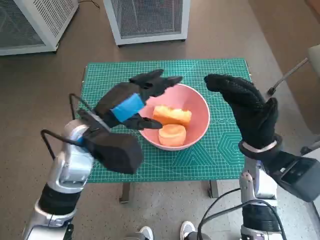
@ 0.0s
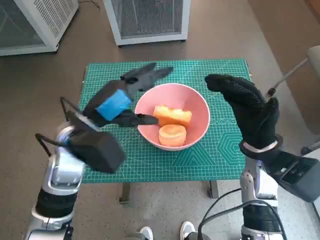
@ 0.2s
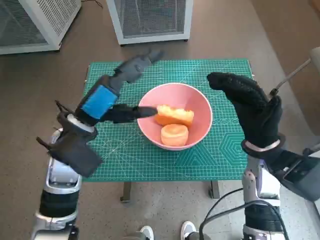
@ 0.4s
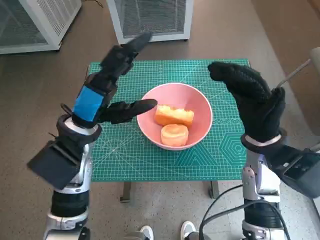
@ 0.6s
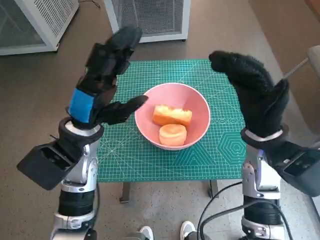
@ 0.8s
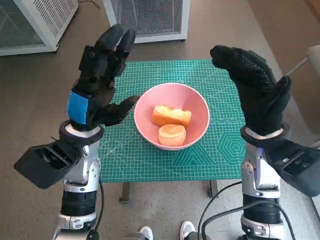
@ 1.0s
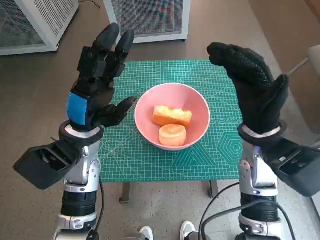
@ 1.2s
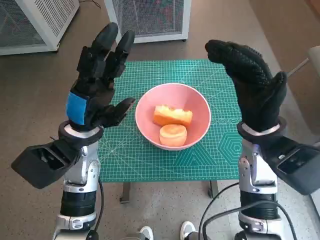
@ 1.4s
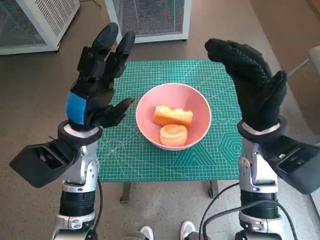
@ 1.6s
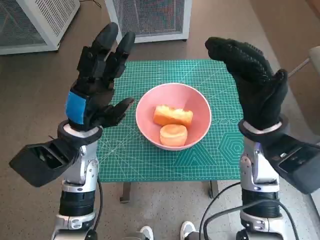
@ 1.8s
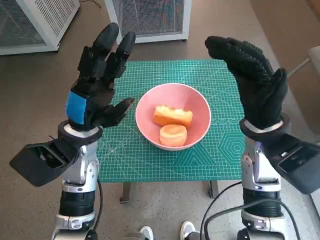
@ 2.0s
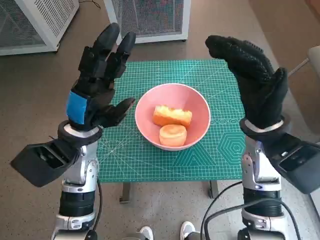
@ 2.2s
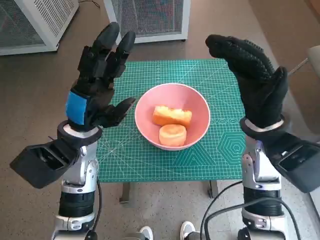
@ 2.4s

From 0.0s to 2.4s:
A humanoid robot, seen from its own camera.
Task of the whole recording: Push the bowl into the center of the table and put the bread into the bowl.
From 1.2s to 2.4s: Both hands stay about where they are.

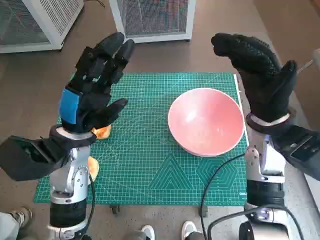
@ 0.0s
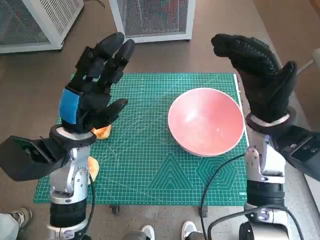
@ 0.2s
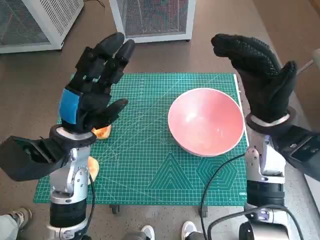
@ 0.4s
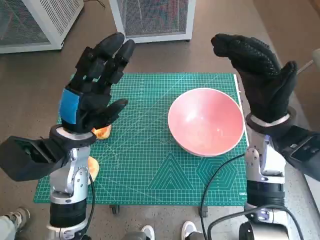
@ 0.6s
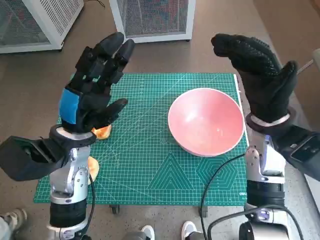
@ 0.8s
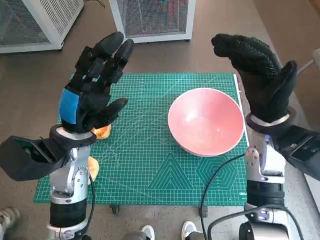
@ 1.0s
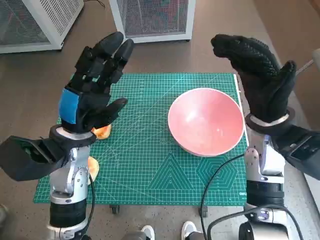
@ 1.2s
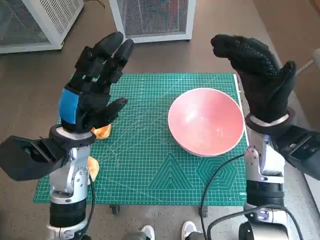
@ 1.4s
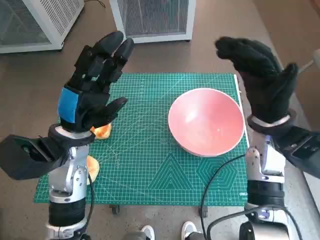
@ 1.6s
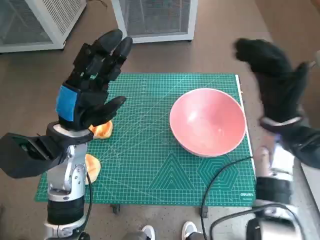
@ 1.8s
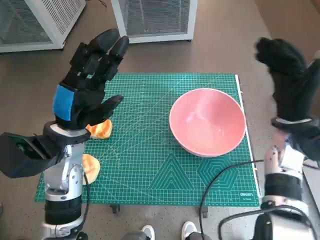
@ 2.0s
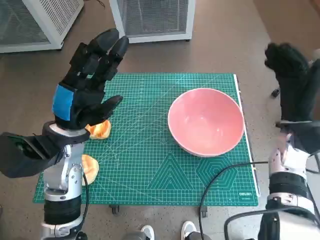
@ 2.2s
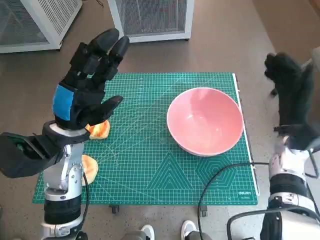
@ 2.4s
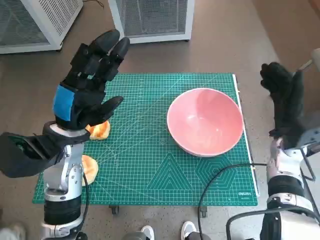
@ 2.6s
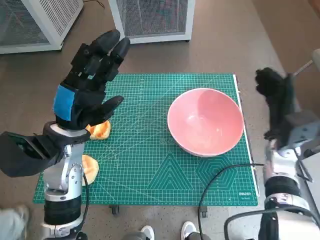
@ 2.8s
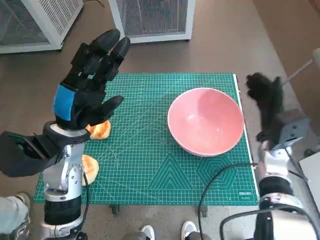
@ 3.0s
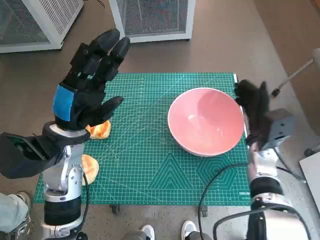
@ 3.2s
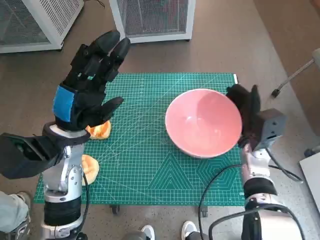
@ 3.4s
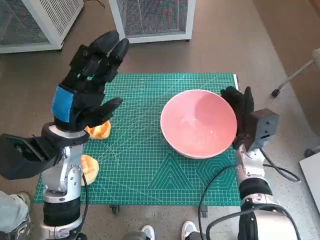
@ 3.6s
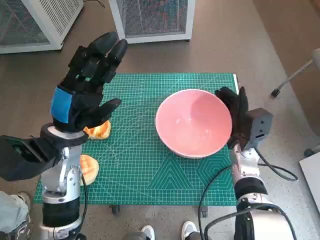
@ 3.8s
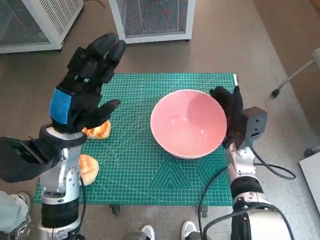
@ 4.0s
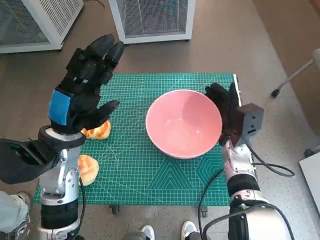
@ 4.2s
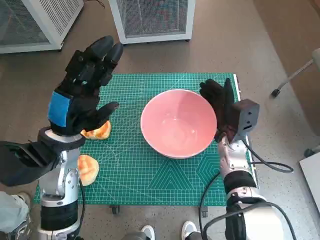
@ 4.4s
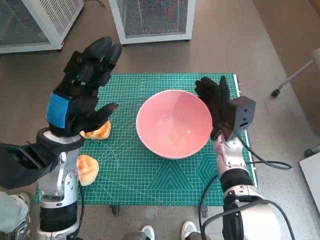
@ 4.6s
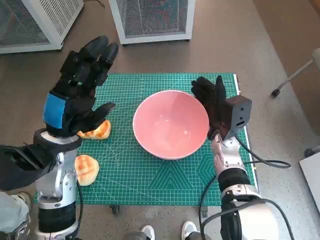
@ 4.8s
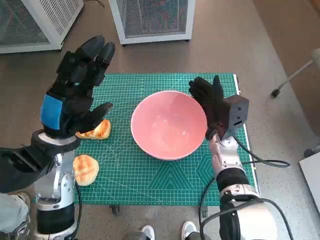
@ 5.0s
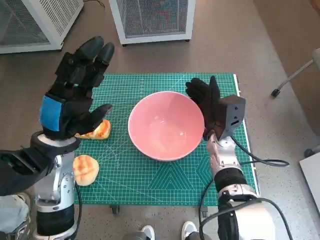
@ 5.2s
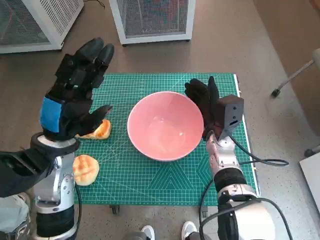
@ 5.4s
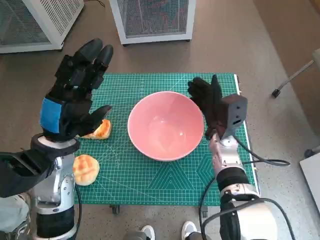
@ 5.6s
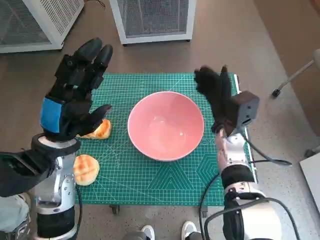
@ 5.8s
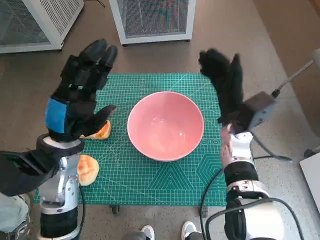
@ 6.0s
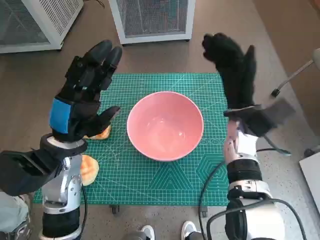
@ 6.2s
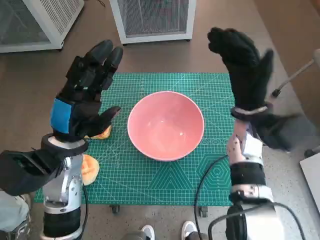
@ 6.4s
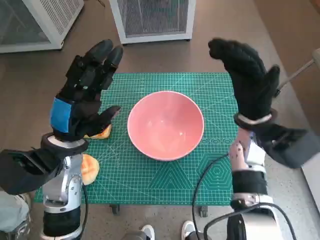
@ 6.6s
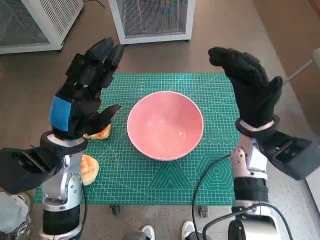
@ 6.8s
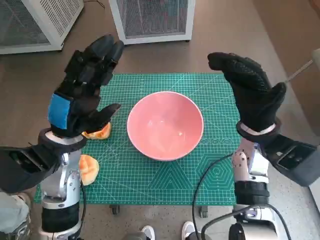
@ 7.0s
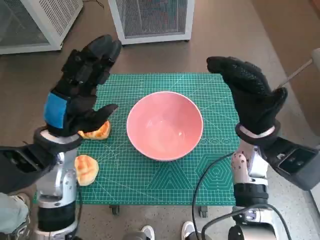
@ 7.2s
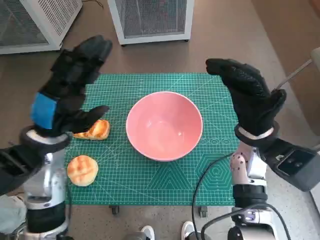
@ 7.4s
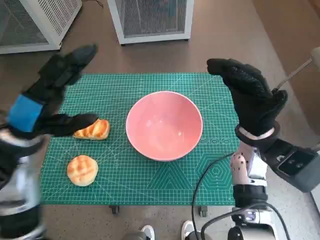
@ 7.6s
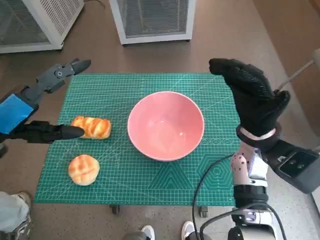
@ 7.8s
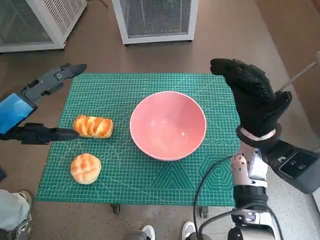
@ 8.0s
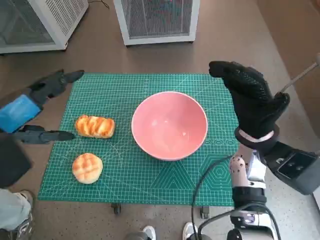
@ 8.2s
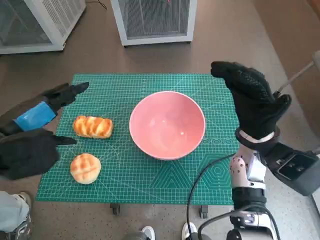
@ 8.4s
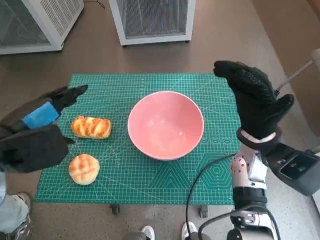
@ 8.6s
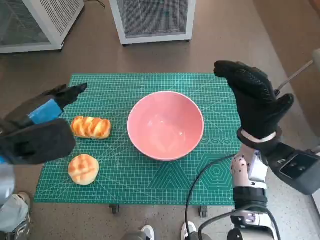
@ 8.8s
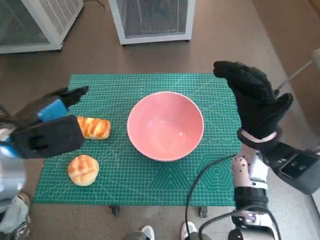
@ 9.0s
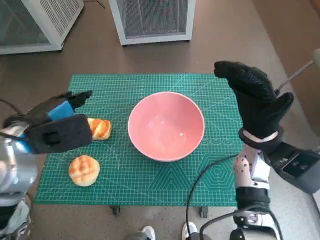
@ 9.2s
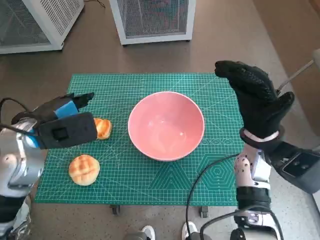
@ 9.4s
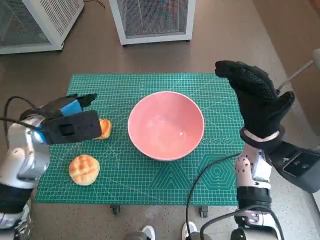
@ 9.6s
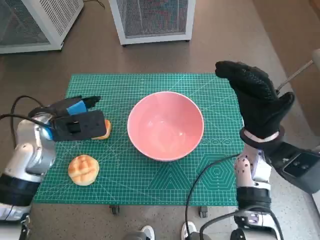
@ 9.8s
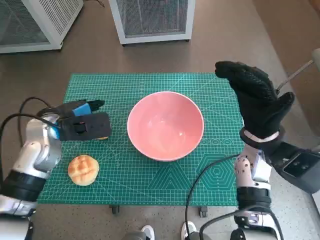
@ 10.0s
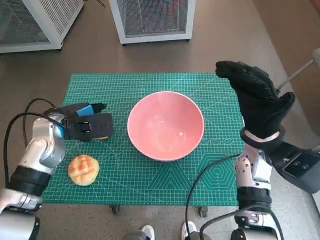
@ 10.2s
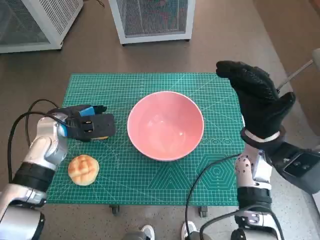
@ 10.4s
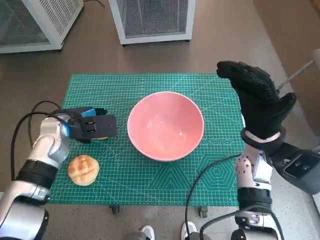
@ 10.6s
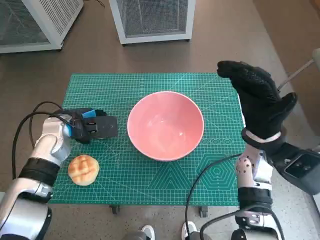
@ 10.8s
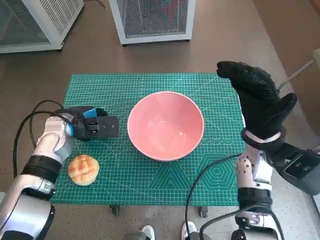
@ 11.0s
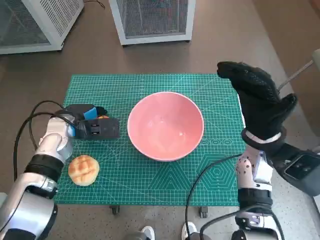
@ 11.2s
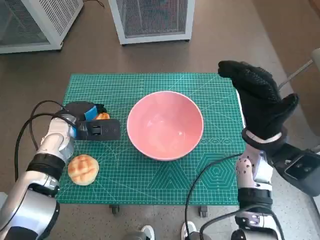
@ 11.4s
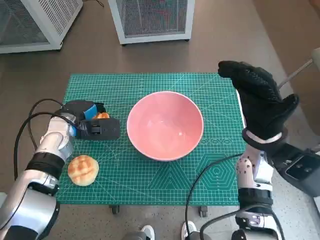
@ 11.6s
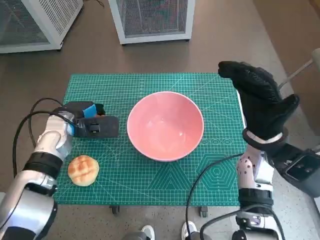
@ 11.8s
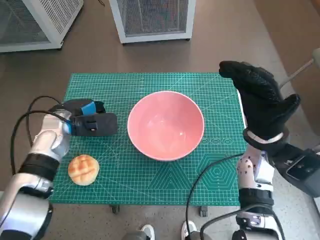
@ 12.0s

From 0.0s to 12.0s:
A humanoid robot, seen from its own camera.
Task of the whole recording: Push the bowl into the center of the table and put the bread into the bowl.
Step, from 0.0s to 5.6s: Move the pink bowl to the center of table with right hand.
Step, from 5.8s to 11.0s: Grasp the long bread with left hand.
From 1.6s to 3.0s: The right hand is displaced downward by about 10 cm.
From 3.0s to 4.4s: The right hand heads to the left, covering some 10 cm.
From 6.0s to 7.6s: The right hand ends up some 5 cm from where it was. The left hand changes place by approximately 5 cm.
From 9.0s to 10.4s: The left hand travels downward and forward by some 10 cm.
From 10.4s to 12.0s: The hands make only small movements.

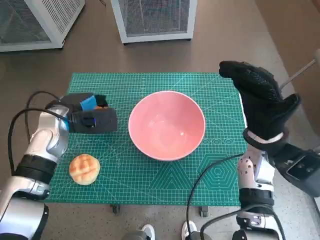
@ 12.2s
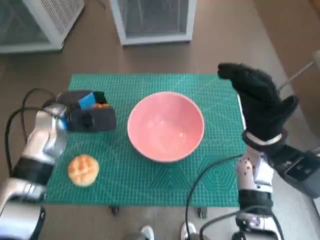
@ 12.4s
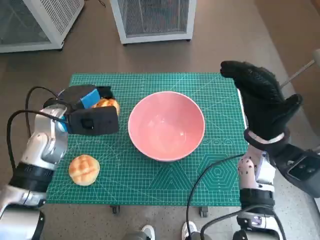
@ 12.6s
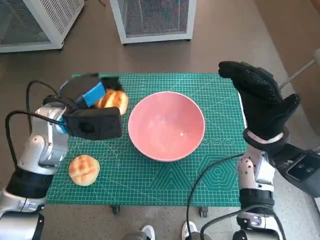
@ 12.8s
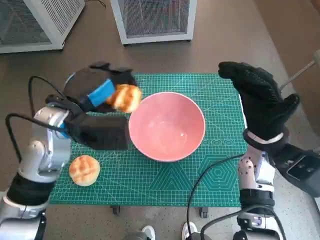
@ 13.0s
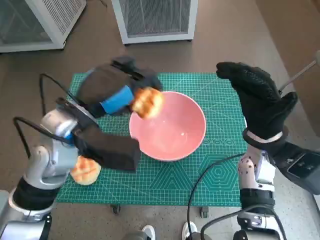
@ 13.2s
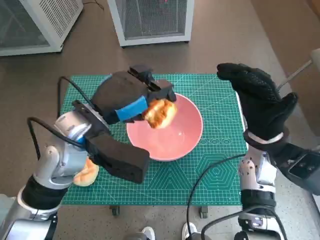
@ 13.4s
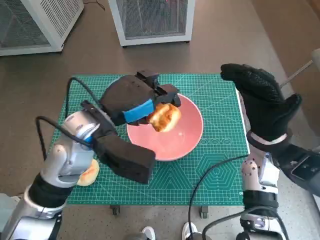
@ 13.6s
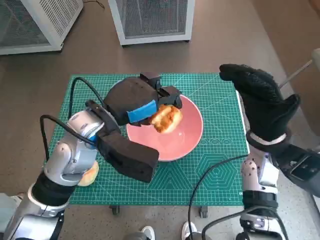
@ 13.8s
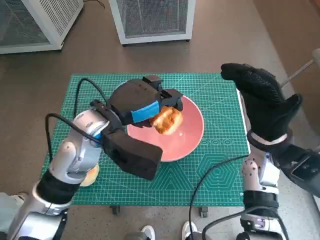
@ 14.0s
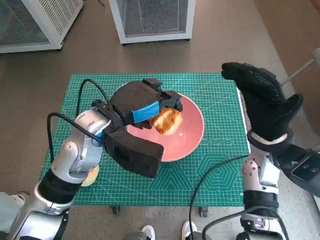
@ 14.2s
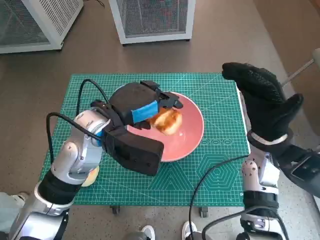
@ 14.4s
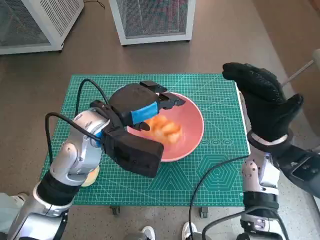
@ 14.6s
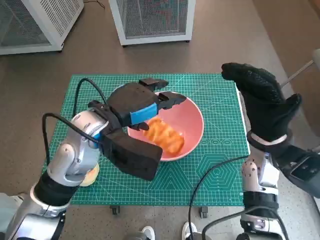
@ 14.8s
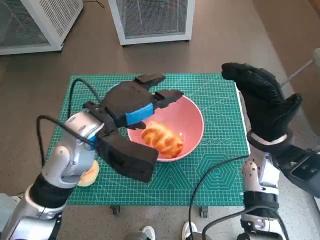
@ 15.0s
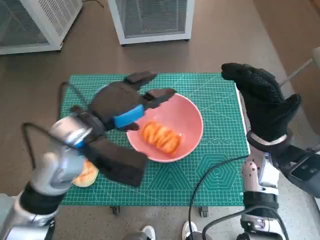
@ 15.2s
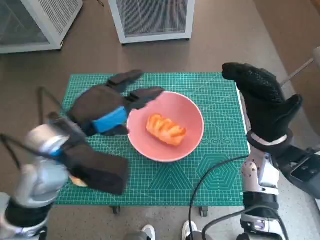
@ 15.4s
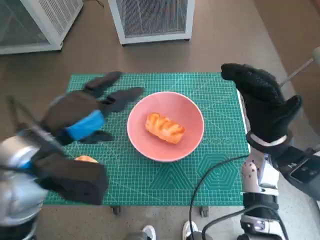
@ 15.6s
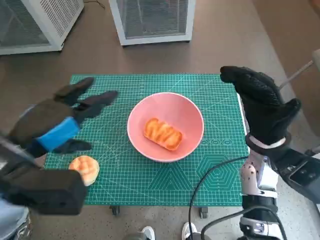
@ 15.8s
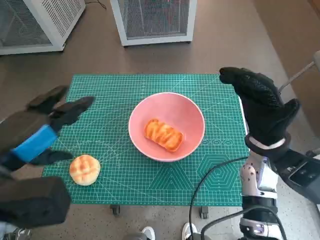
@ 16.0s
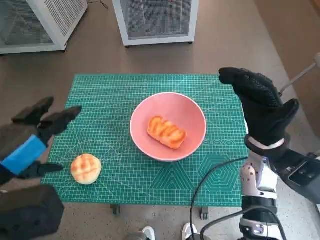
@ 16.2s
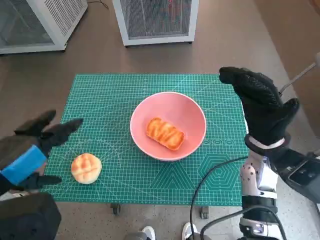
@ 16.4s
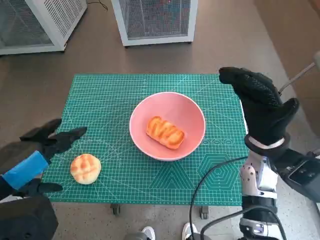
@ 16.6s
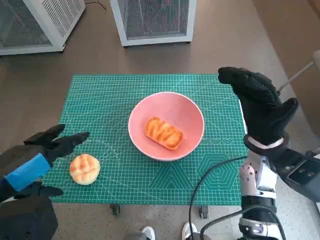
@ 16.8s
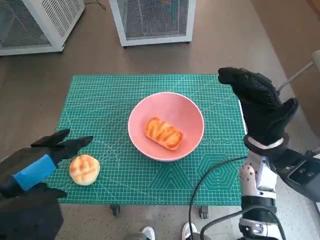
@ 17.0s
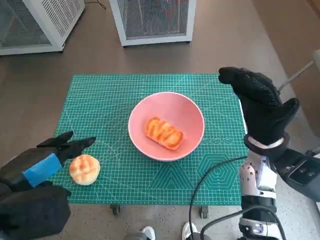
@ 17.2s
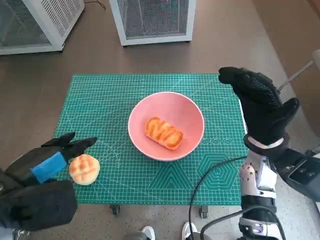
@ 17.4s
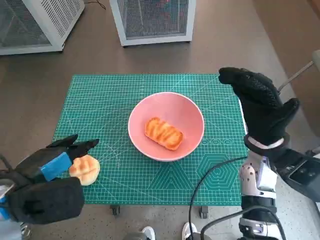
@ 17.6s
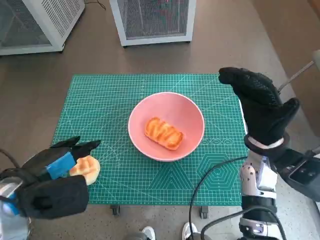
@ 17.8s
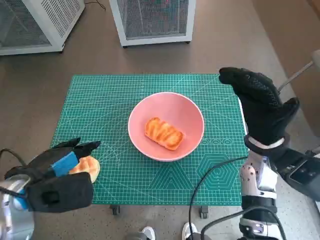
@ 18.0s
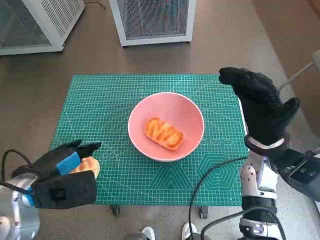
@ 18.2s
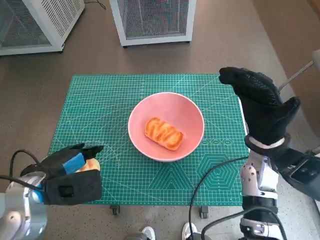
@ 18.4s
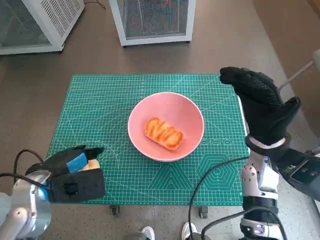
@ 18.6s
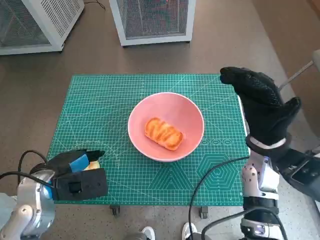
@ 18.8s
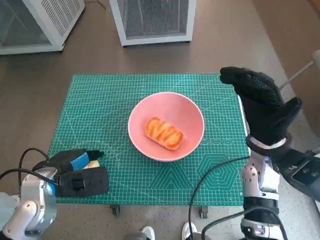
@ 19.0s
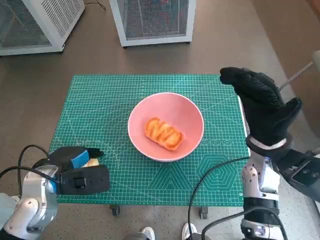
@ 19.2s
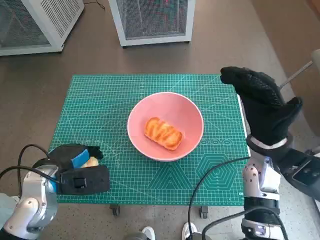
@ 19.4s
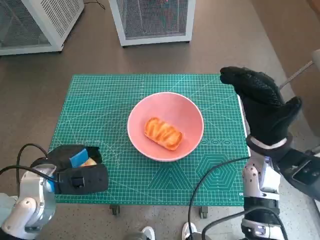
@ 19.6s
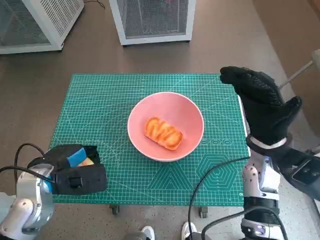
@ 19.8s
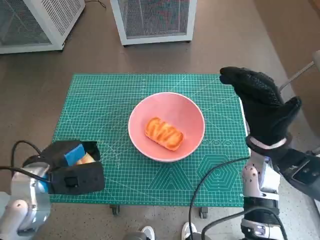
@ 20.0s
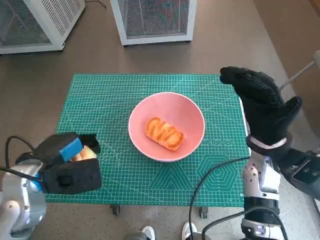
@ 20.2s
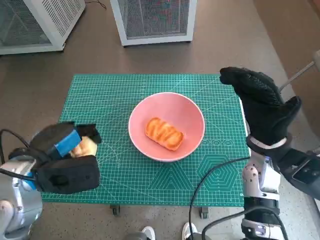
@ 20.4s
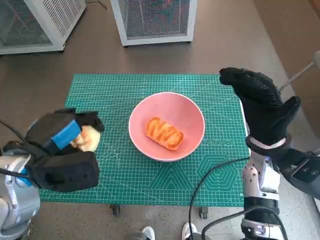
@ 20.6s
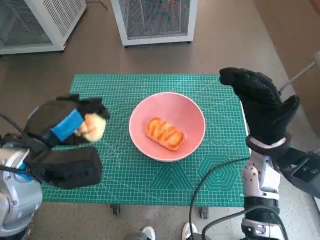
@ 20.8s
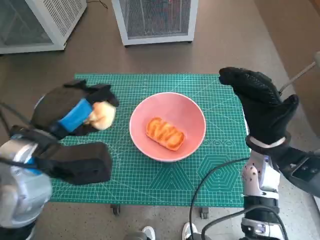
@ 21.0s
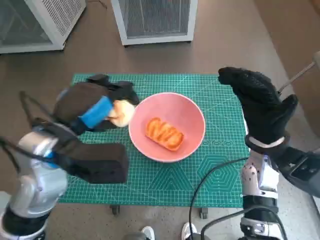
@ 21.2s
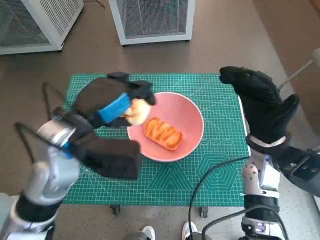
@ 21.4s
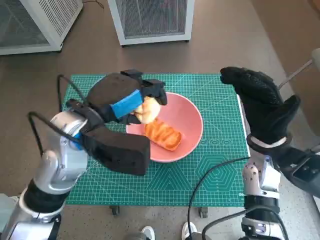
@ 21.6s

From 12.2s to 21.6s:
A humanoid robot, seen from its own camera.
Task of the whole recording: Push the bowl into the center of the table and put the bread into the bowl.
Step, from 12.2s to 14.6s: Place the long bread in pink bowl with left hand.
Step, from 14.8s to 19.2s: Grasp the round bread with left hand.
From 12.2s to 13.8s: The left hand is displaced to the right, upward and backward by roughly 15 cm.
From 15.4s to 17.0s: The left hand heads backward and to the left, covering approximately 15 cm.
From 17.0s to 18.4s: The left hand is displaced downward and forward by approximately 10 cm.
From 18.4s to 20.0s: The hands stay close to where they were, moving slightly.
From 20.0s to 21.6s: The left hand travels upward and to the right by roughly 15 cm.
